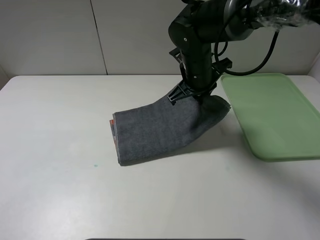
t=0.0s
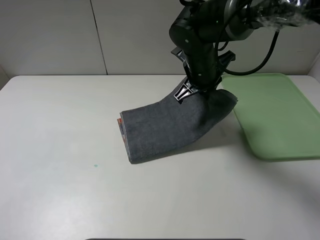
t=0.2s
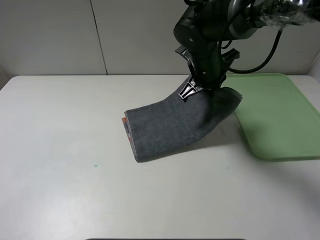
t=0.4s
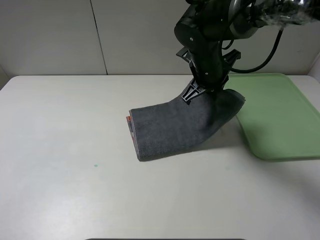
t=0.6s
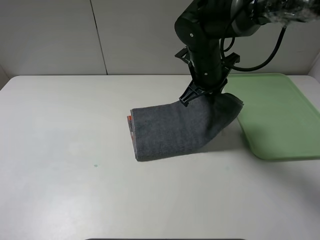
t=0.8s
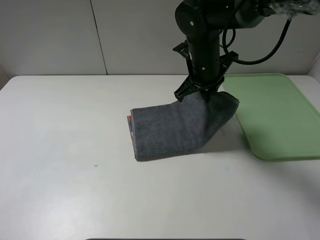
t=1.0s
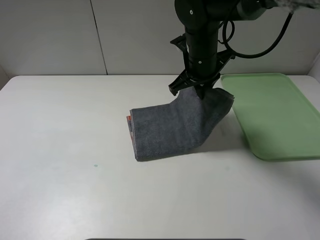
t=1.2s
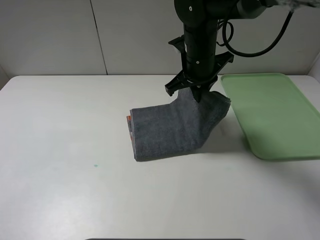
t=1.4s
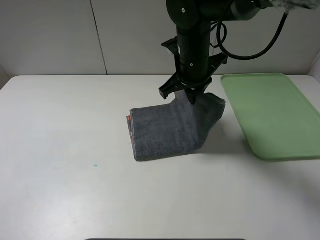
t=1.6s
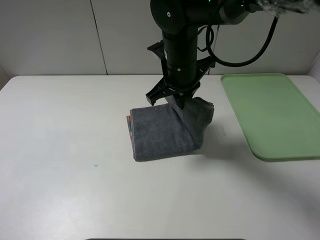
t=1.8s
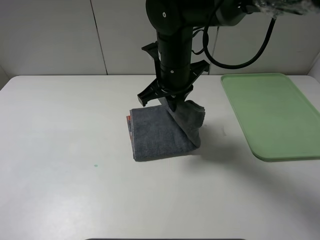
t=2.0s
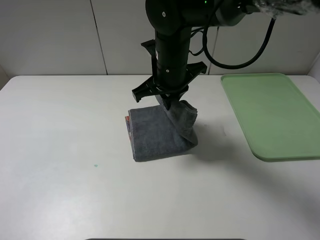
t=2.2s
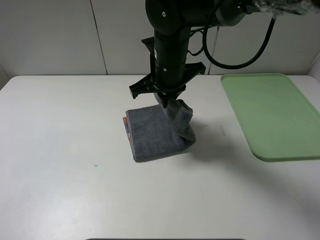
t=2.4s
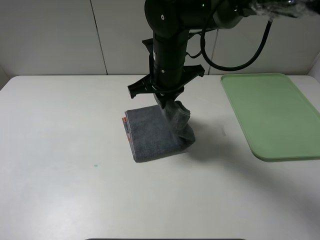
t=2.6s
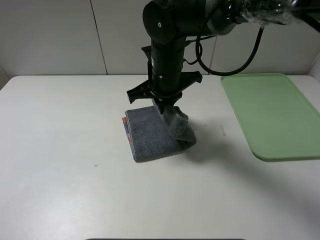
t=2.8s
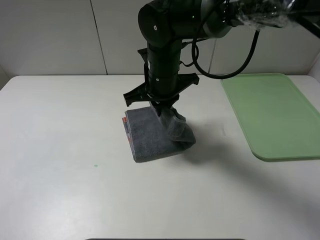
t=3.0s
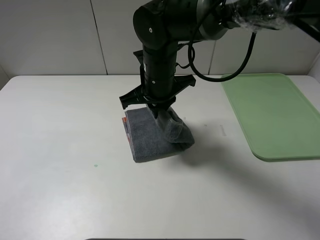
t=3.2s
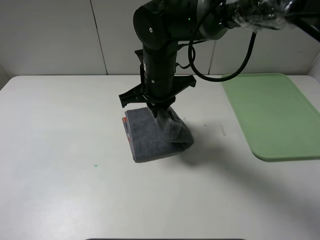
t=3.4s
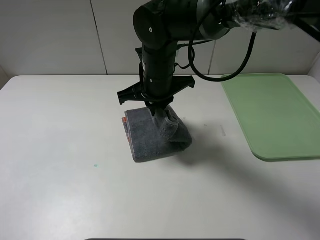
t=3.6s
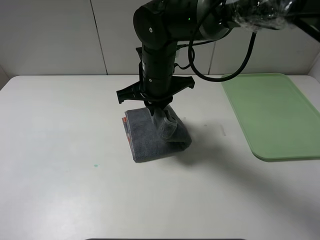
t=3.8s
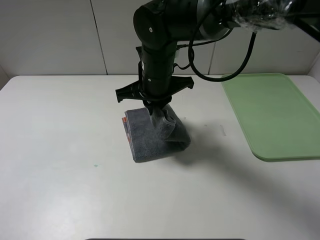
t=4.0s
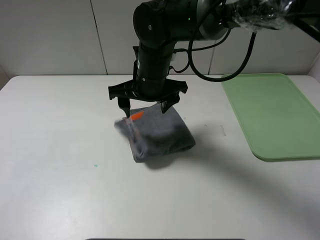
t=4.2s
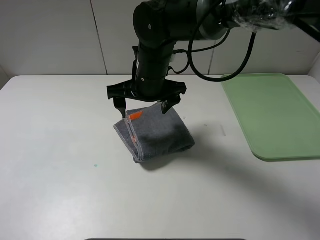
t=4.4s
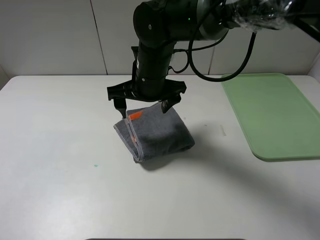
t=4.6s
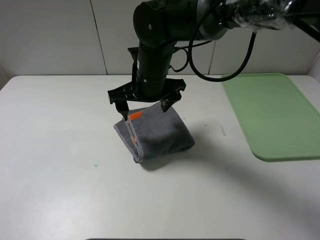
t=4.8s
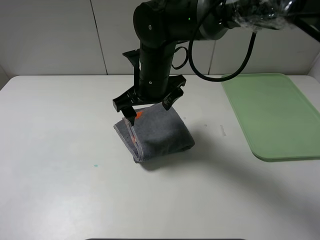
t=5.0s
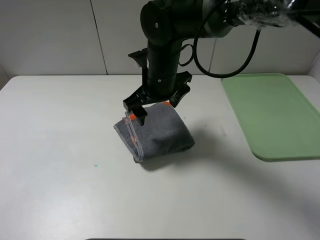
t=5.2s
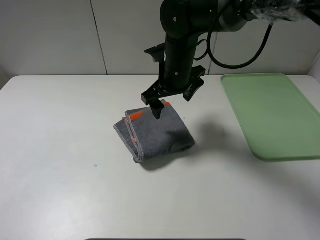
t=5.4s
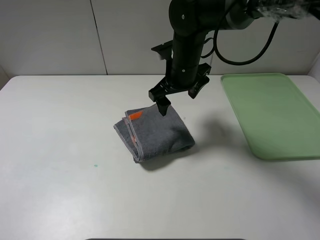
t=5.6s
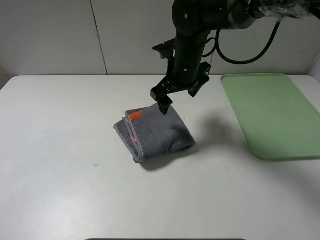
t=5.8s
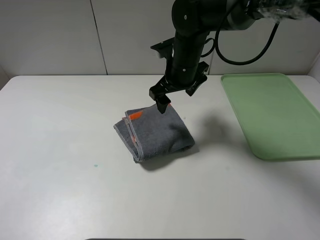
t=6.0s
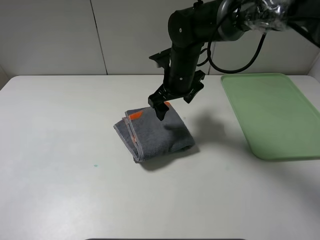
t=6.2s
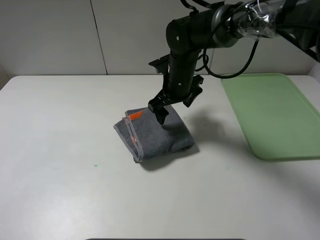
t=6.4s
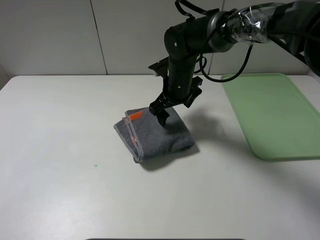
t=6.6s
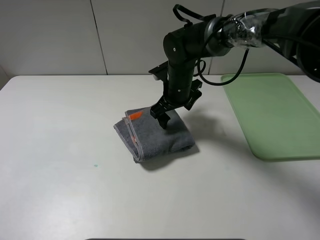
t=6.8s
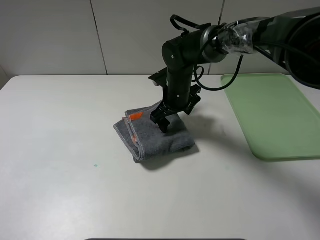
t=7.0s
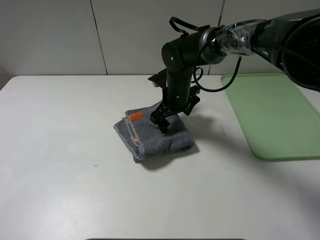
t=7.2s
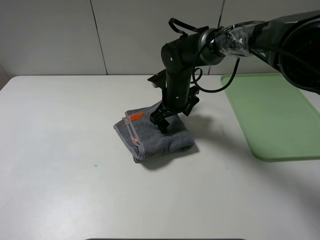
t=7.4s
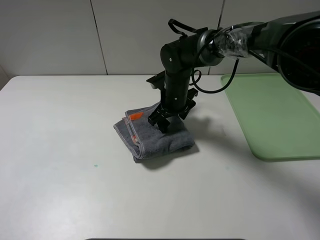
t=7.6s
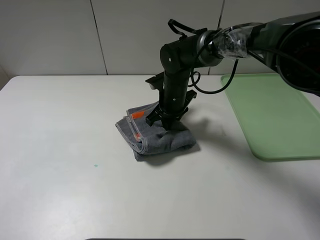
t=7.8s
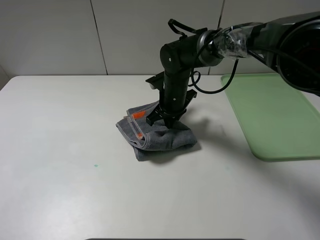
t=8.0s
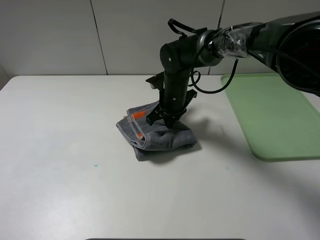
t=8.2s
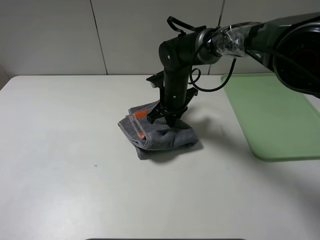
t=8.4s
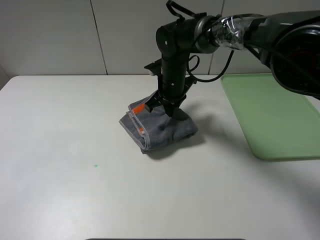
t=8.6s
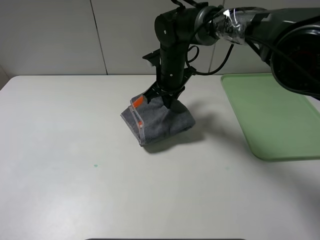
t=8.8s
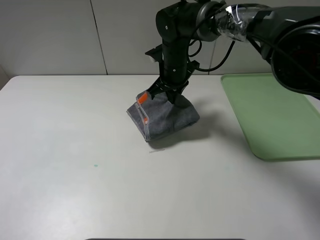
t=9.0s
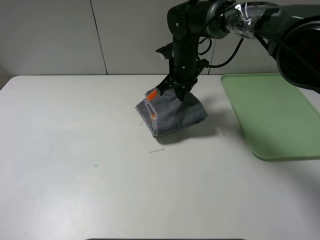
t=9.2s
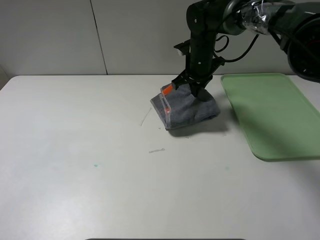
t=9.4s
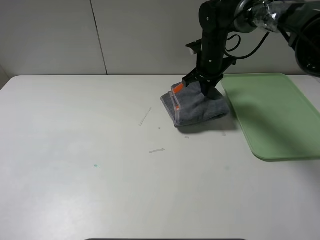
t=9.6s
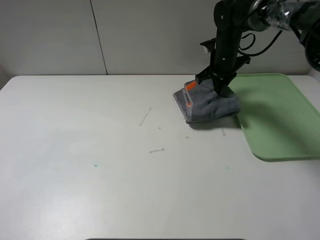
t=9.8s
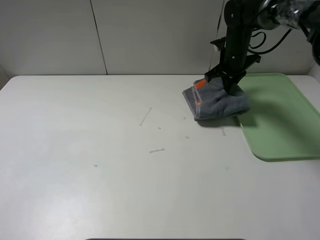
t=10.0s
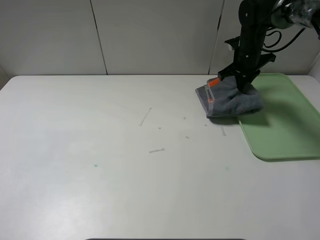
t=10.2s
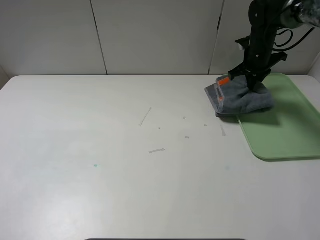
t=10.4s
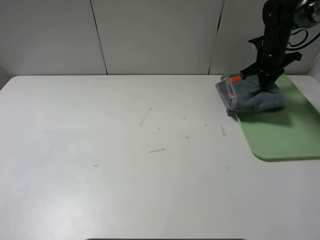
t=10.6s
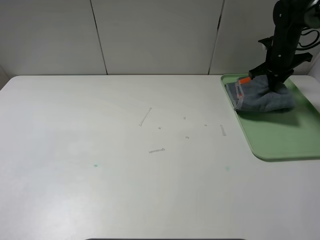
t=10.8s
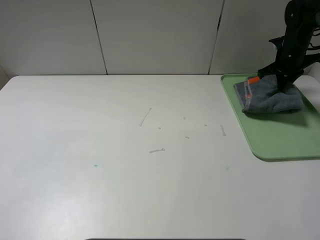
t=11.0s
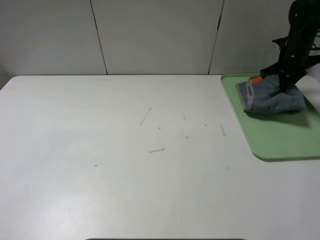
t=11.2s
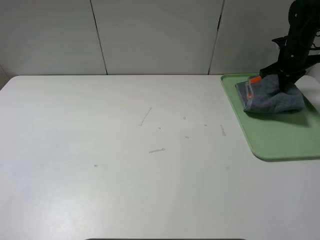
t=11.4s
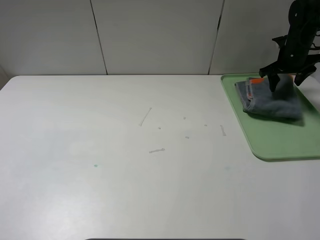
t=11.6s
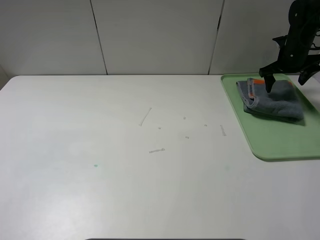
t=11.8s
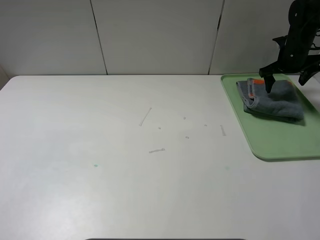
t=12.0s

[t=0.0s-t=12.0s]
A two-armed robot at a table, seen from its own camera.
Step, t=0.0s to t=4.4s: Fold the grey towel from right to left with right gripper.
Step, t=4.6s to t=11.6s: Place the folded grey towel on the tray with the right gripper.
t=0.0s to t=1.6s: There are only small adjustments of the grippers.
t=1.6s to t=3.0s: The right gripper travels to the left by approximately 5 cm.
t=3.0s to t=4.4s: The right gripper opens its fingers.
t=4.4s to t=6.0s: The right gripper travels to the right and forward by about 10 cm.
t=6.0s to t=7.6s: The right gripper is displaced downward by roughly 10 cm.
t=7.6s to t=9.0s: The right gripper shifts approximately 5 cm upward, and closes.
t=9.0s to t=10.4s: The right gripper is displaced to the right by roughly 25 cm.
t=10.4s to t=12.0s: The right gripper moves to the right, about 10 cm, and opens.

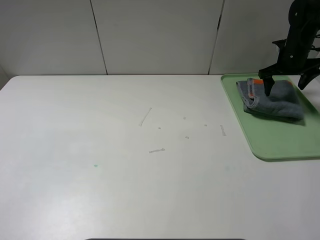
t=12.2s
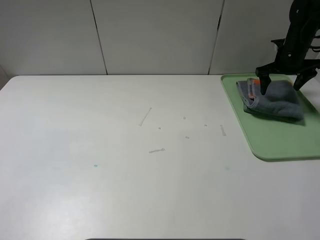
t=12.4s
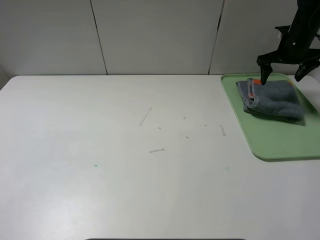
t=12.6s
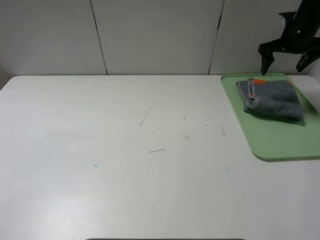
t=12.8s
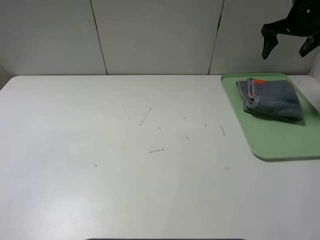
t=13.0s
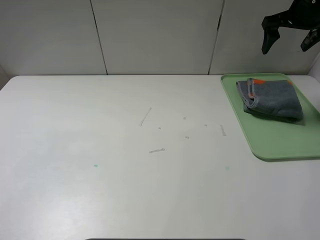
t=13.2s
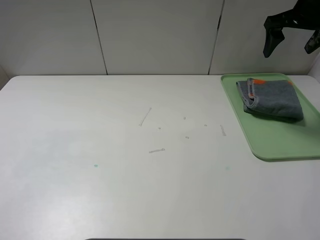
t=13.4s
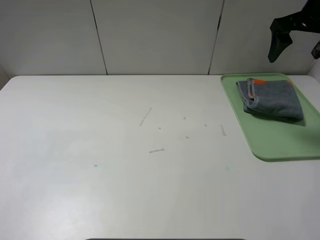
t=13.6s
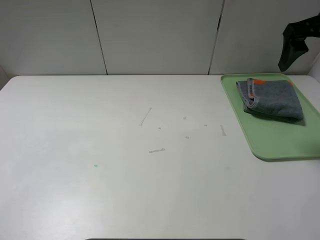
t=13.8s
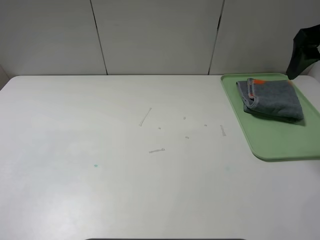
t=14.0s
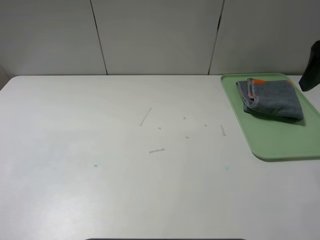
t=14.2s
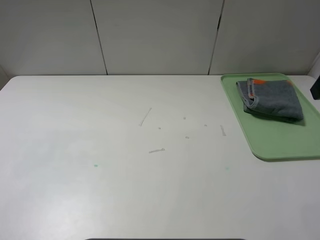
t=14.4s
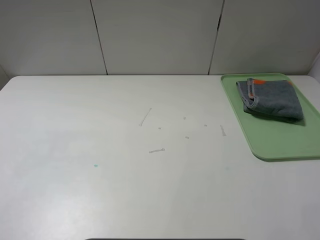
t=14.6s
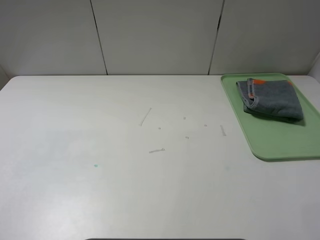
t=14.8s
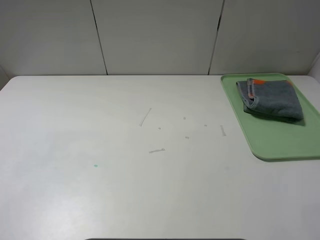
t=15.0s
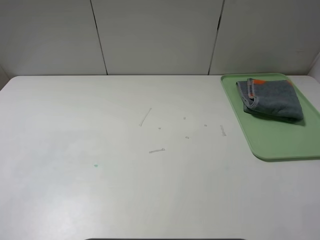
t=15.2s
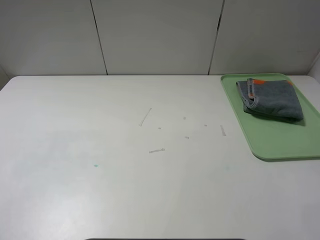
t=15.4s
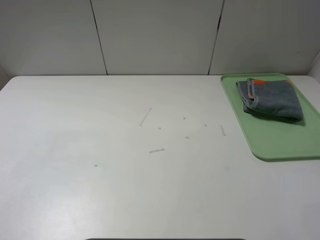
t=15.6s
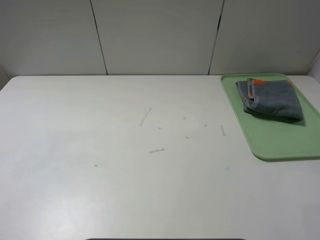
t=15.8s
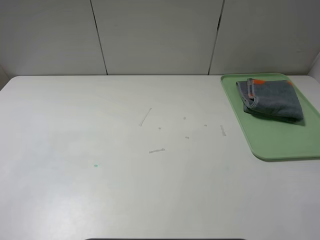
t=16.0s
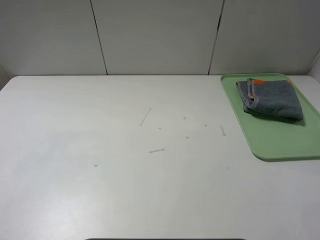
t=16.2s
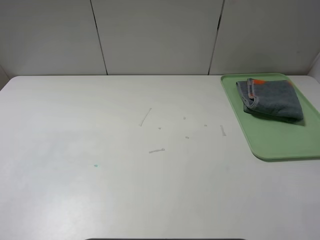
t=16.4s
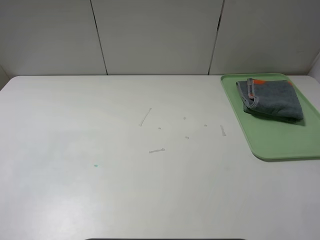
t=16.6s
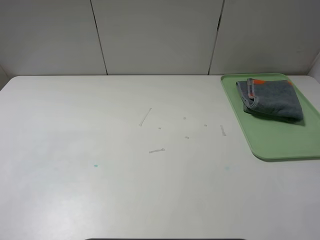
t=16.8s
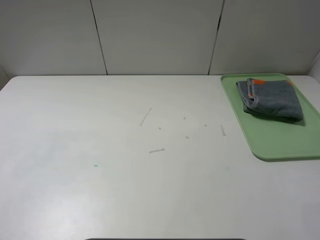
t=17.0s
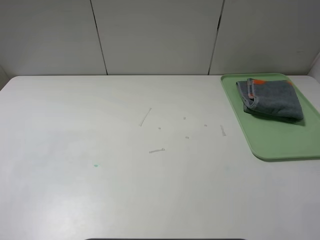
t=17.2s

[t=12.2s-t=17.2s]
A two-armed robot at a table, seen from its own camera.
t=12.2s to t=13.8s: The right gripper goes some 25 cm backward and upward.
t=13.8s to t=15.6s: The right gripper is displaced backward by some 30 cm.
t=15.6s to t=17.2s: Neither gripper changes place.

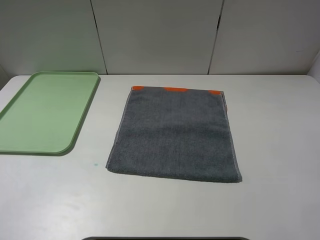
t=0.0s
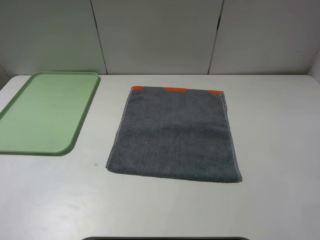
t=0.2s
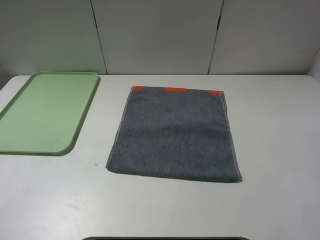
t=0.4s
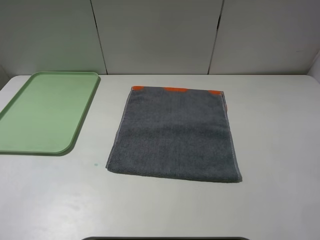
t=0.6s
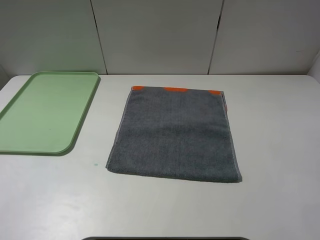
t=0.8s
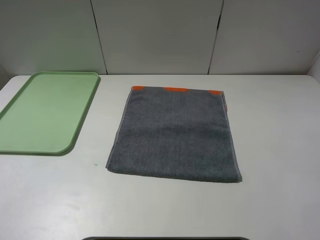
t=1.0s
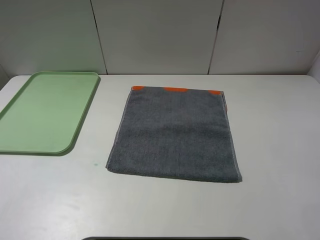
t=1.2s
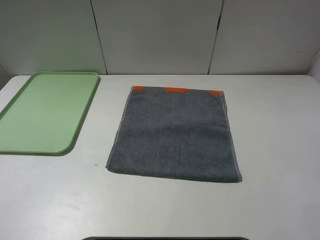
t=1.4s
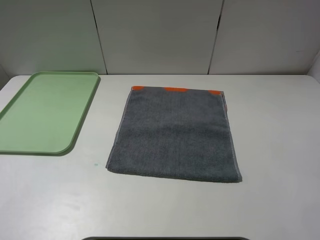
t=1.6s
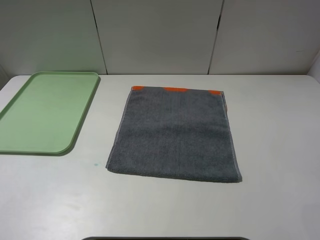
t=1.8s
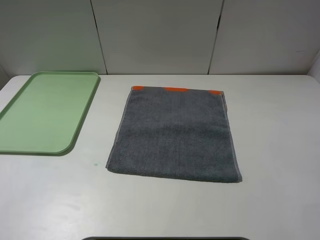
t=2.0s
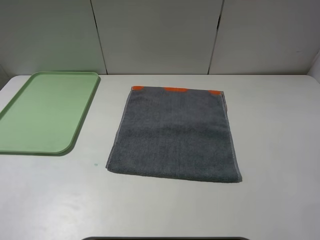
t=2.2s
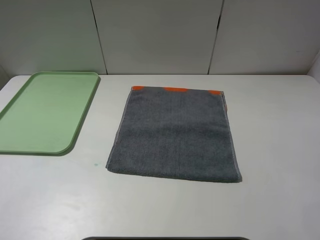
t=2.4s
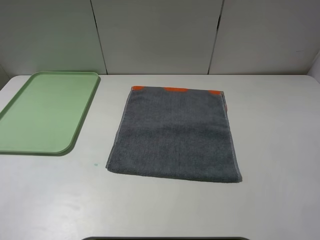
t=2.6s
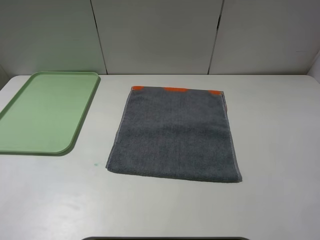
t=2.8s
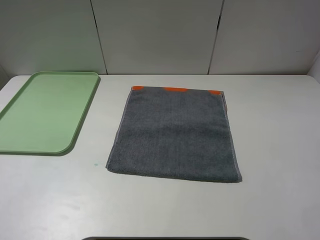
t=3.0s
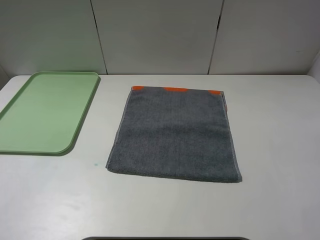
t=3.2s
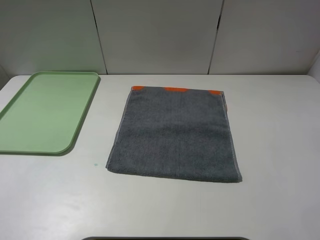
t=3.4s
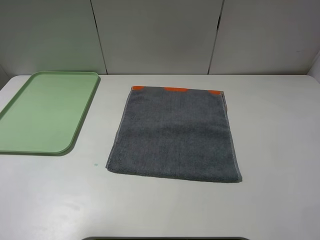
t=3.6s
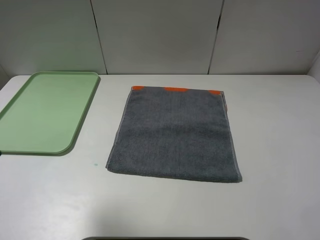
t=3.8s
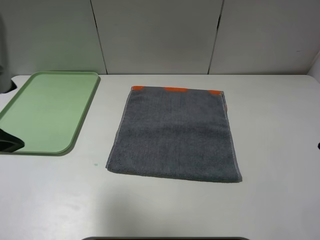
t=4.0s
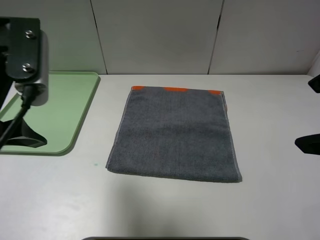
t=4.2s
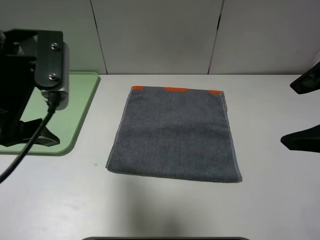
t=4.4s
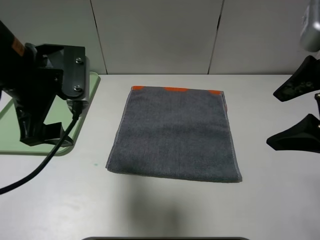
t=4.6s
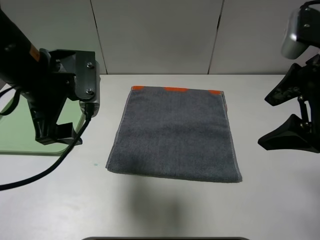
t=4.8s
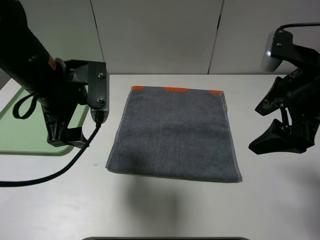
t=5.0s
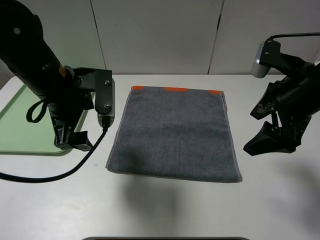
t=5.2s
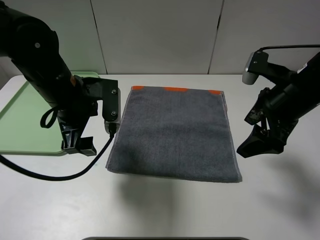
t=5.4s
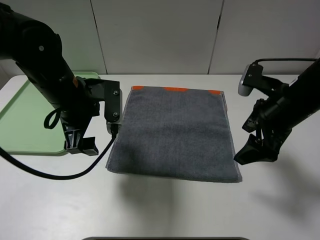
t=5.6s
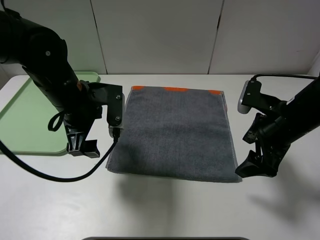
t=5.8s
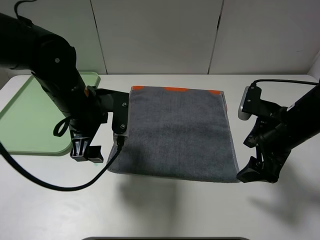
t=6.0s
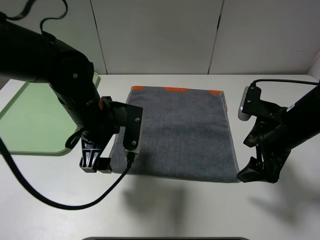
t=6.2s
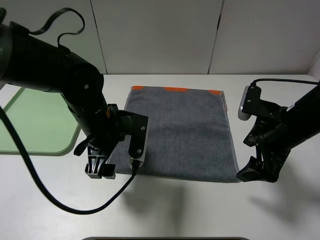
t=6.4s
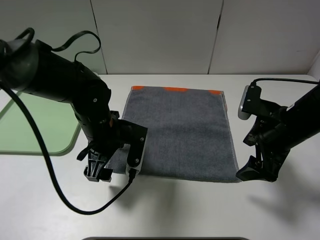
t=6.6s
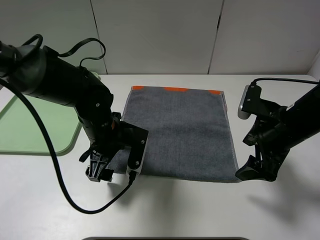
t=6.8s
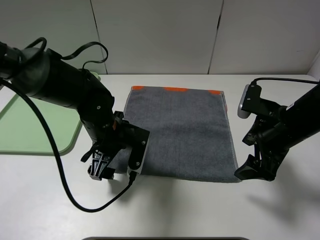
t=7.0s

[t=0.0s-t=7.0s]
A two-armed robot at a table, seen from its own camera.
t=0.0s to t=1.4s: Both grippers stay put.
t=2.8s to t=4.2s: The right gripper moves forward, some 15 cm. Meanwhile the left gripper goes some 20 cm forward and to the right.
t=4.2s to t=5.6s: The left gripper heads downward, forward and to the right, covering approximately 15 cm. Meanwhile the right gripper shifts roughly 20 cm downward and forward.
t=5.6s to t=7.0s: The left gripper shifts some 10 cm downward and to the right.
